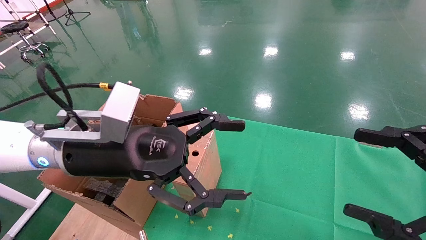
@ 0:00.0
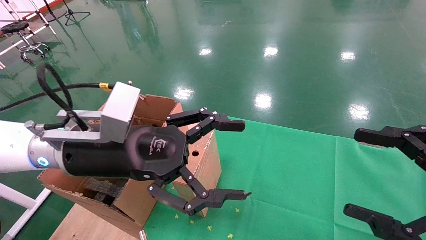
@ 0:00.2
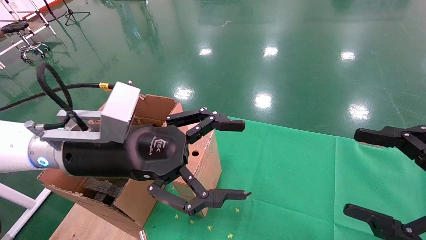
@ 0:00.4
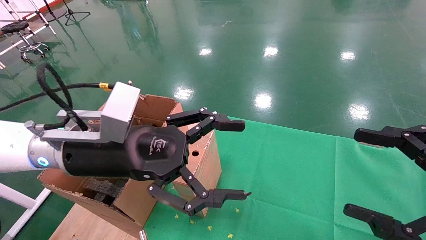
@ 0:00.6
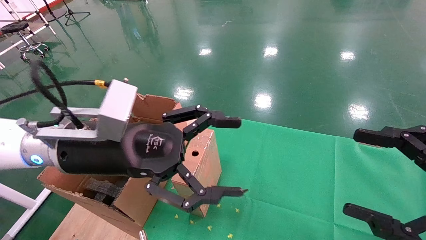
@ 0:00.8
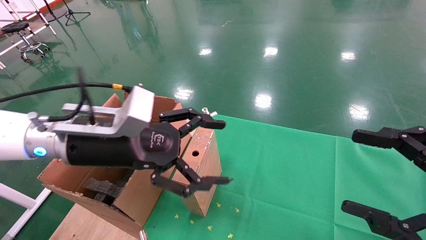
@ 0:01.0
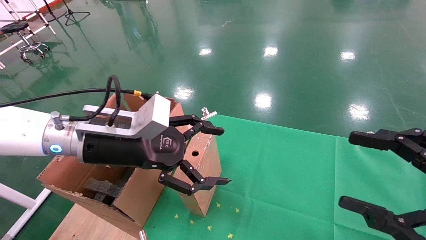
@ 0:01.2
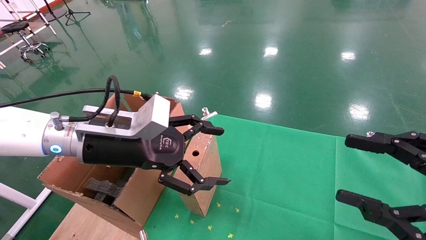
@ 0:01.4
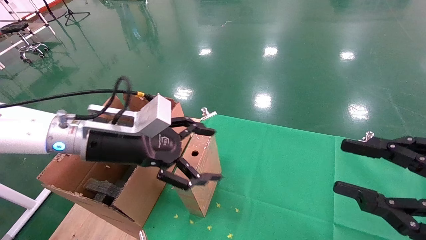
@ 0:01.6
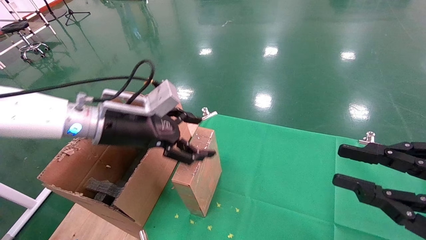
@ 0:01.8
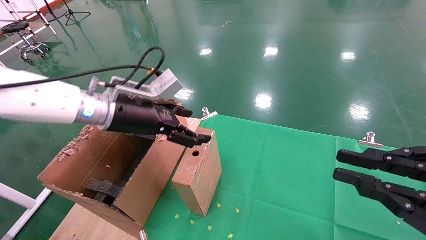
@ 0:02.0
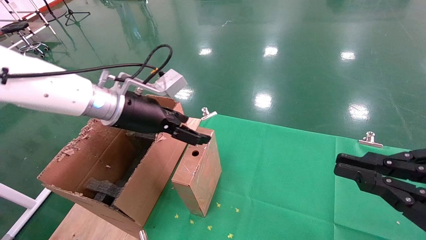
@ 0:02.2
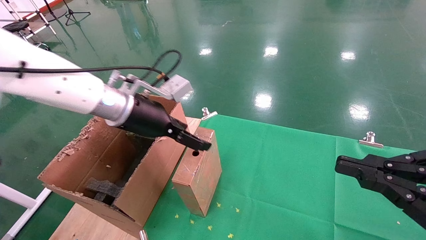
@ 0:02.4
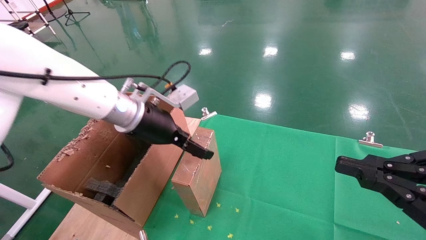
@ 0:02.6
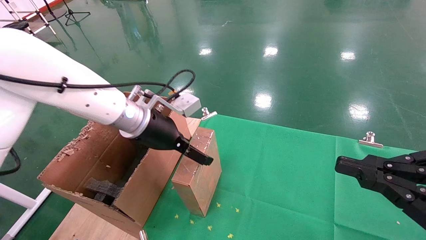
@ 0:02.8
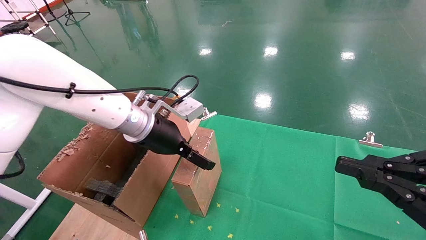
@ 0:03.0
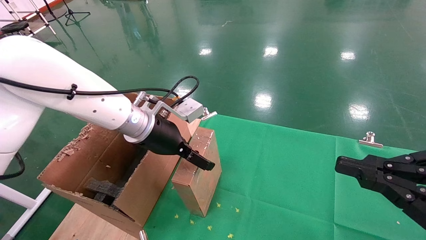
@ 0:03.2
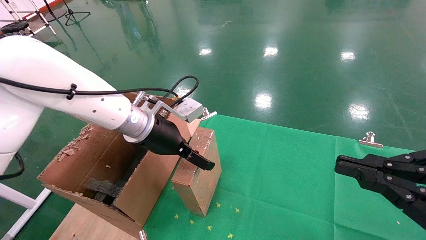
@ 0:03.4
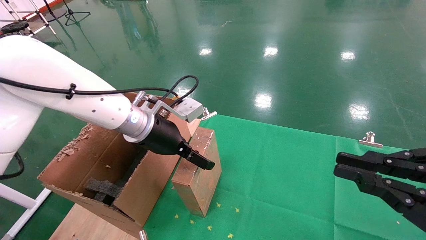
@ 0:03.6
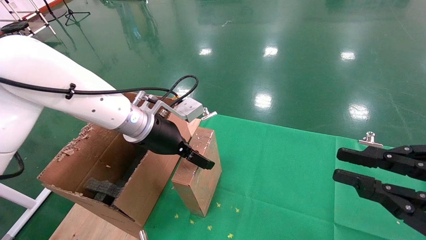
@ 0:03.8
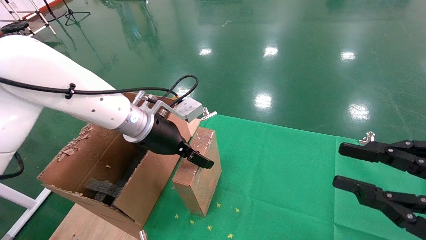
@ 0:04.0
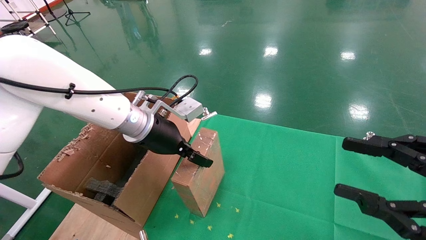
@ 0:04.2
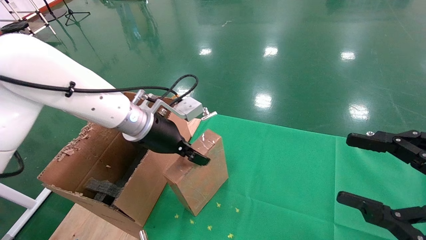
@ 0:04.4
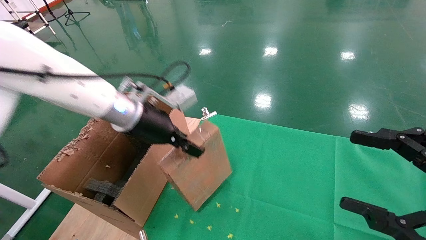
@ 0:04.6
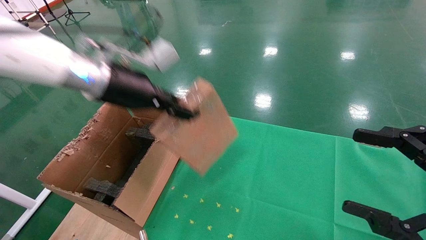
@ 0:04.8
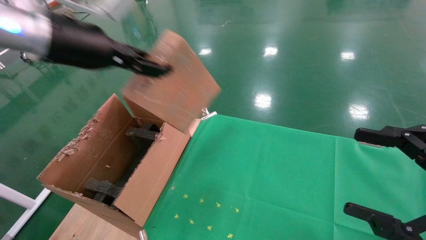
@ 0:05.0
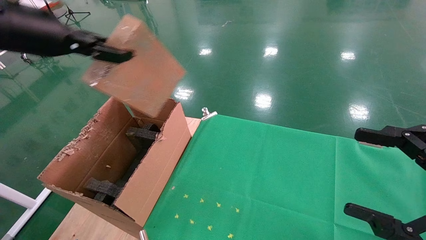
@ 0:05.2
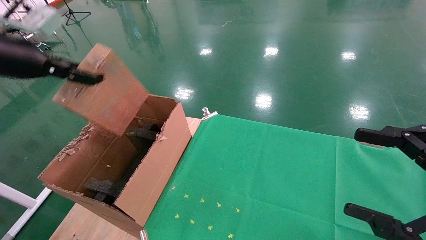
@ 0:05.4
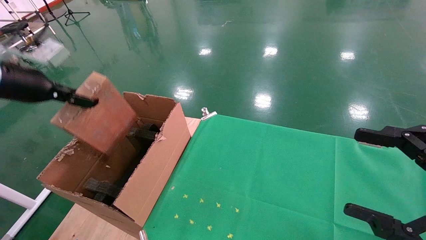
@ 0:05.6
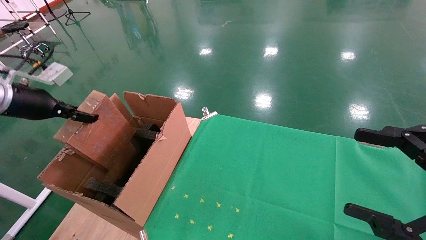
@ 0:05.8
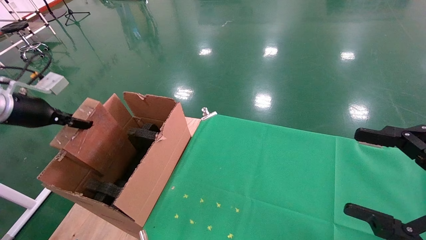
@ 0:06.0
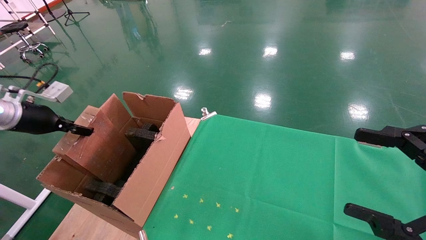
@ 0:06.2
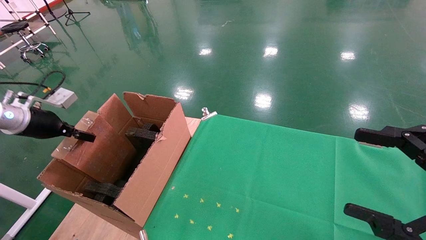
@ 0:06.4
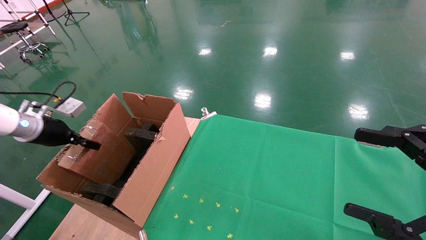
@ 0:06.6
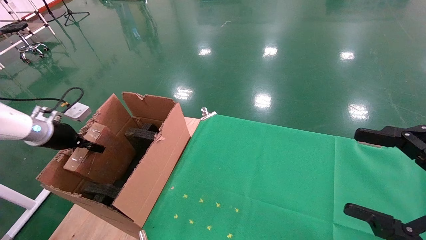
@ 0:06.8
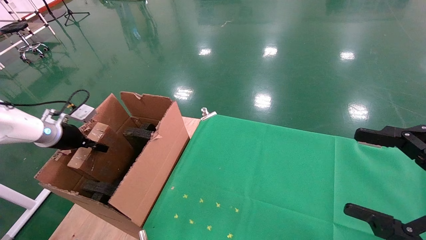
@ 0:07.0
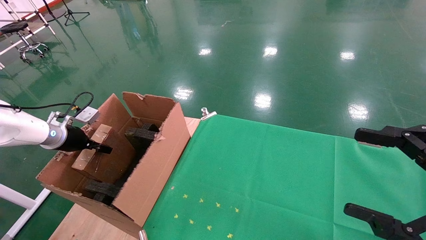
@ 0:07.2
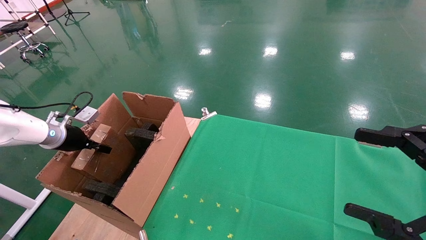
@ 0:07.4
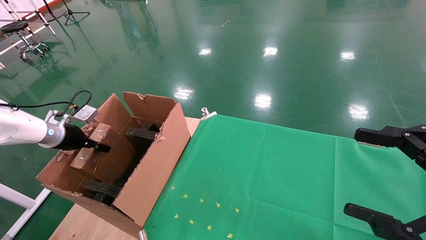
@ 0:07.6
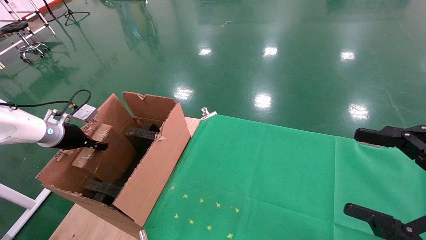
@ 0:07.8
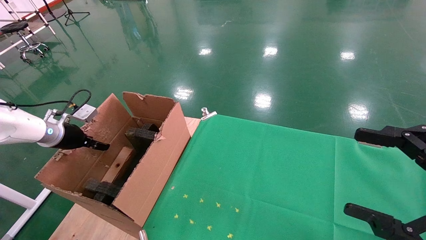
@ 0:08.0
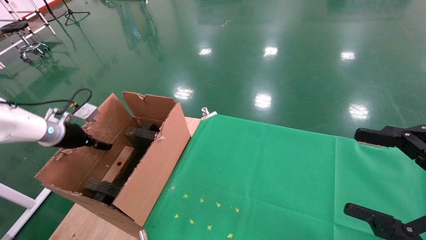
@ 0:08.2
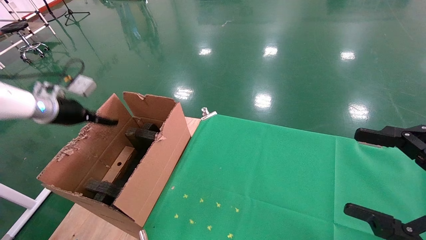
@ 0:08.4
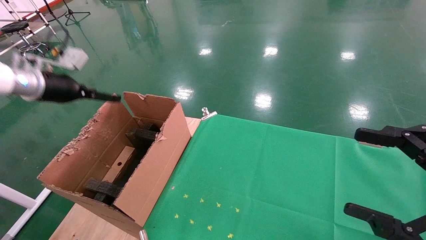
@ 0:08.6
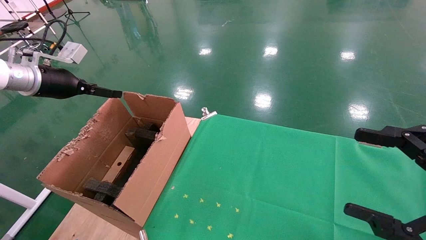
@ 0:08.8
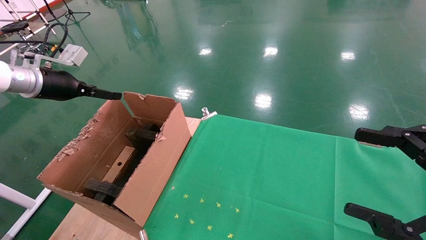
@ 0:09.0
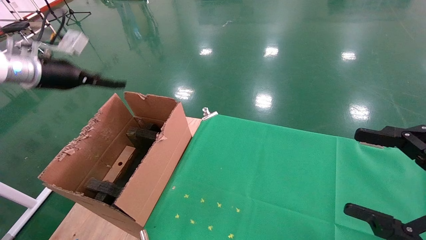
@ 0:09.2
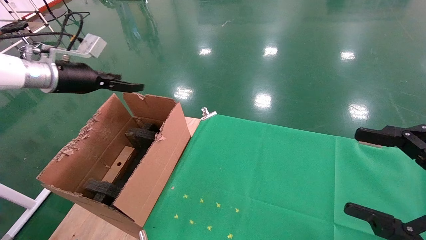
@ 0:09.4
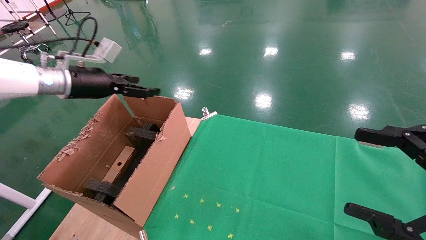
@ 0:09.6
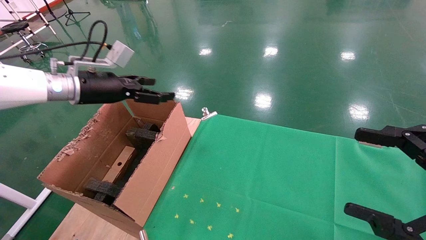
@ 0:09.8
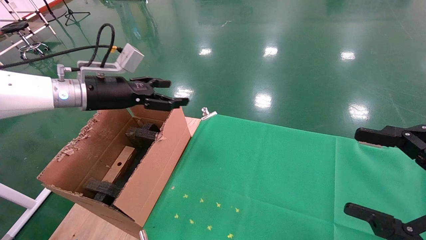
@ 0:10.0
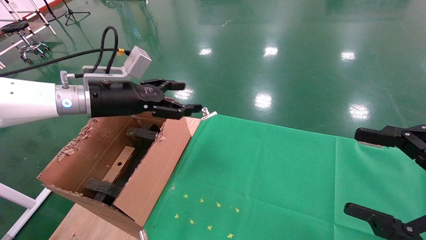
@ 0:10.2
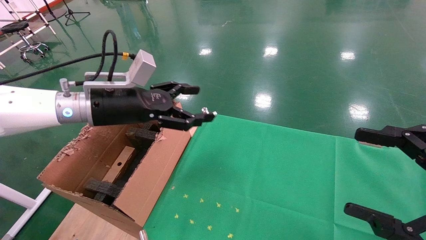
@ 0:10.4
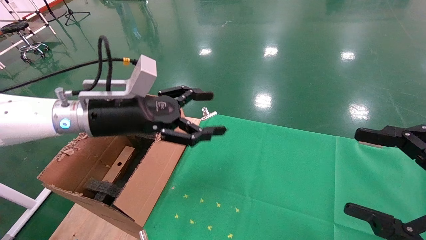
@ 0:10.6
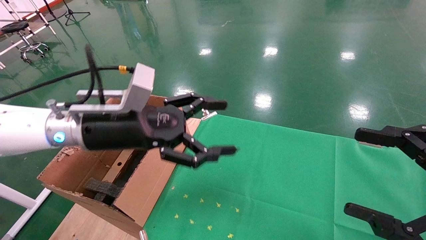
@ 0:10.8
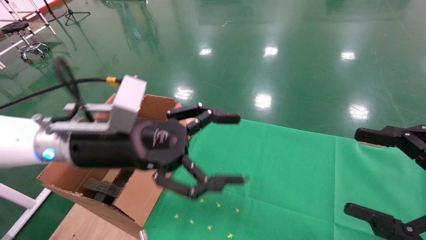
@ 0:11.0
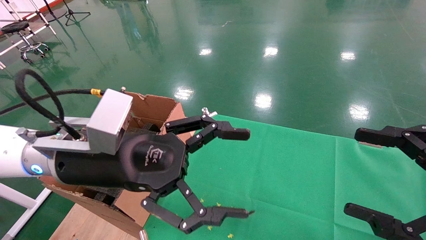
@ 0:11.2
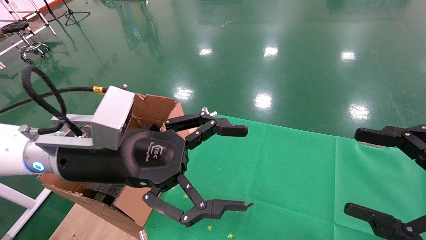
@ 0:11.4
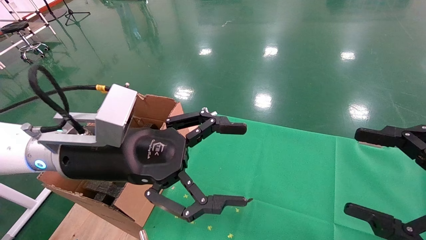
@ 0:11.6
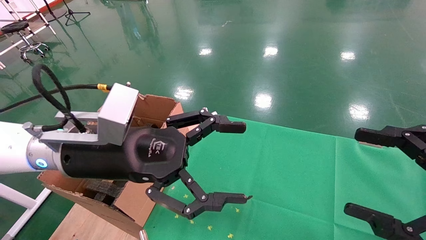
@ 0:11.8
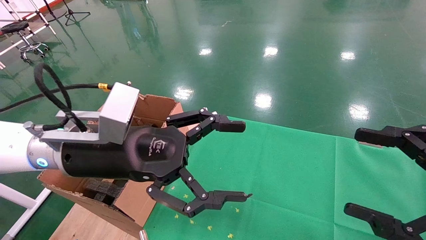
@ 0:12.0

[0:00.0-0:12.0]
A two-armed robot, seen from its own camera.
Task of the whole recording: using a robotic arm to pick up a cardboard box and palace it the carton.
Step, 0:00.8 to 0:04.4: Pick up the mouse and the power cord paper box.
Step, 0:04.6 to 0:07.8: Place the mouse and the power cord paper box into the container.
0:00.0 to 0:01.6: The right gripper closes. Meanwhile the left gripper is displaced forward by approximately 5 cm.
0:01.6 to 0:03.0: The right gripper closes up; the left gripper is displaced forward by about 5 cm.
0:03.0 to 0:04.4: The left gripper closes. The right gripper opens up.
0:04.4 to 0:06.0: The right gripper opens, while the left gripper shifts roughly 30 cm to the left.
0:06.0 to 0:07.6: The left gripper shifts some 10 cm downward and forward.
0:07.6 to 0:09.0: The left gripper travels upward by approximately 15 cm, and opens.
0:09.0 to 0:10.4: The left gripper goes roughly 20 cm to the right.
0:10.4 to 0:12.0: The left gripper goes approximately 10 cm backward and to the right.

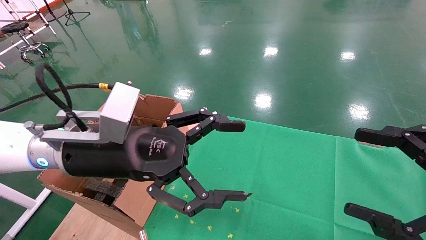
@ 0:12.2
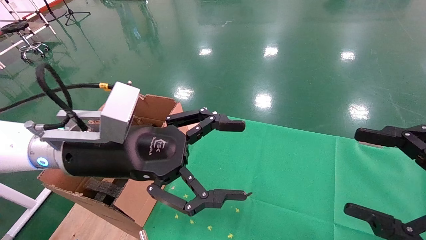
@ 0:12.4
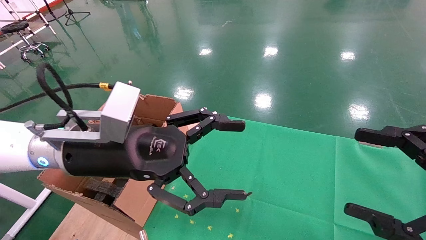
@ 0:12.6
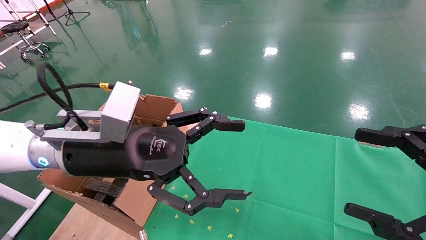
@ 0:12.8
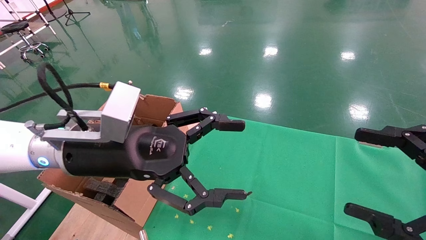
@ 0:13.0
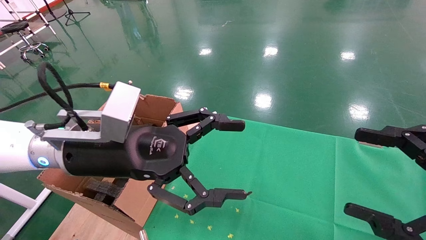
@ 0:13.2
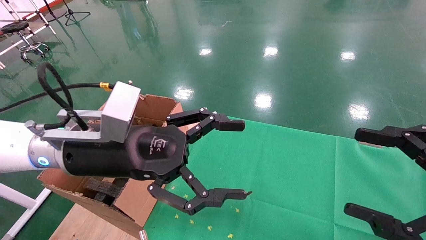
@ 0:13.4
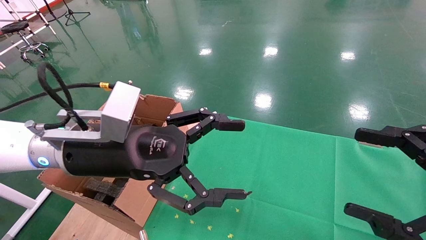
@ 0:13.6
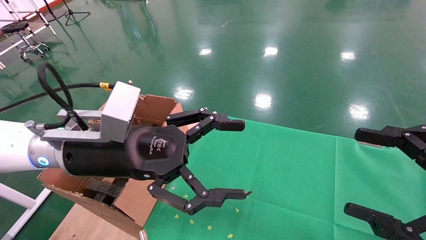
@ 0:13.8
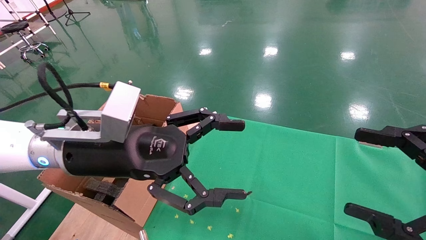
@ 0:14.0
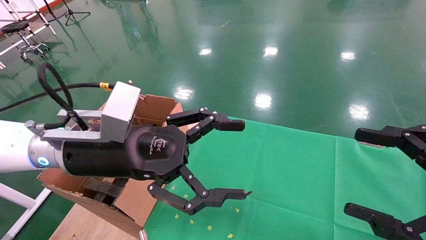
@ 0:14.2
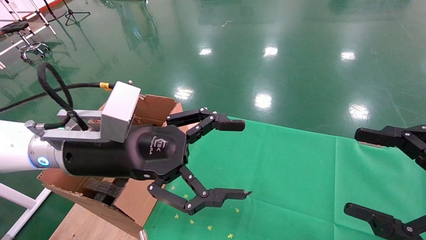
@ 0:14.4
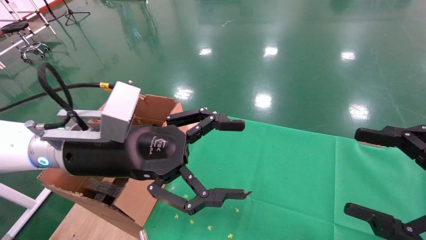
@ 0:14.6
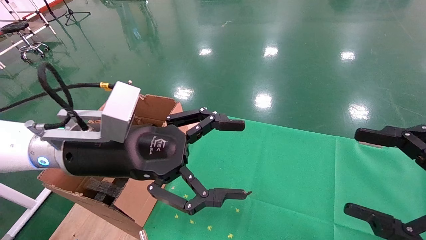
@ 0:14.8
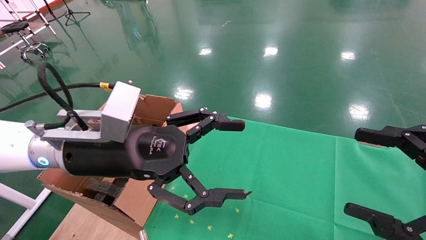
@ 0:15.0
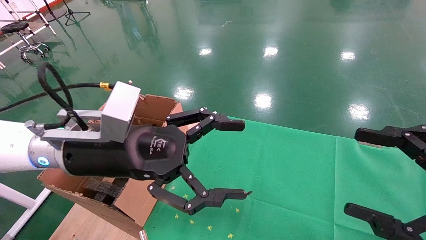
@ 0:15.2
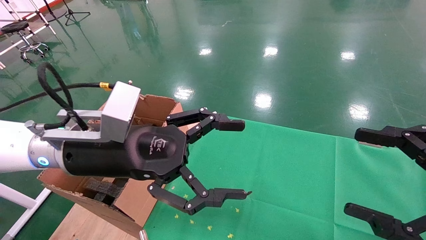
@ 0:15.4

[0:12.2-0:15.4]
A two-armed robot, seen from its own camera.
Task of the whole recording: using a robotic arm to pick up a cardboard box and palace it the carton.
0:12.2 to 0:15.4: The two grippers keep their place.

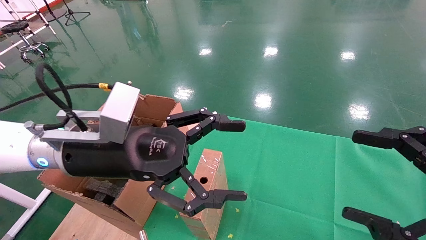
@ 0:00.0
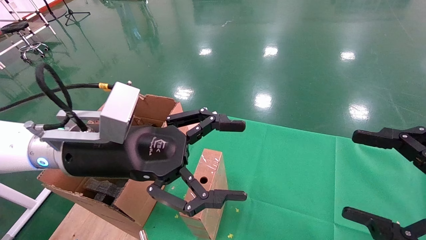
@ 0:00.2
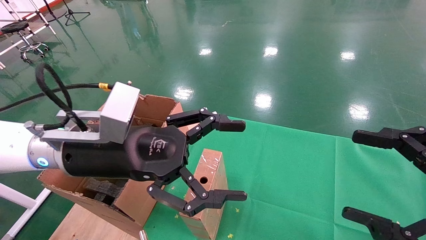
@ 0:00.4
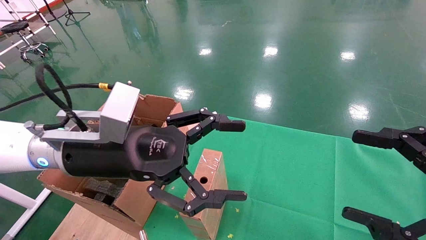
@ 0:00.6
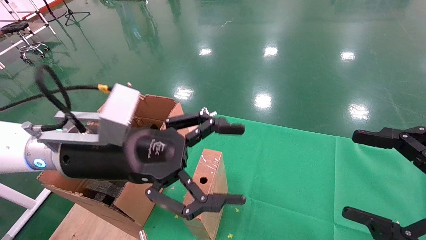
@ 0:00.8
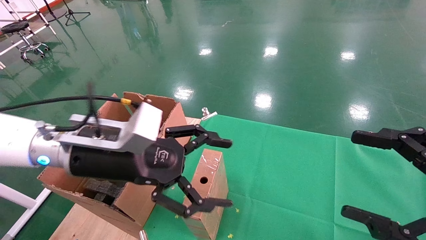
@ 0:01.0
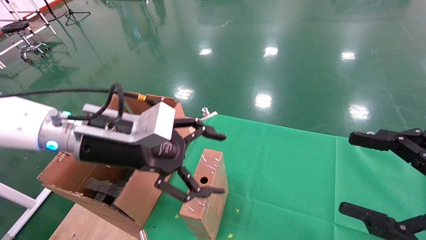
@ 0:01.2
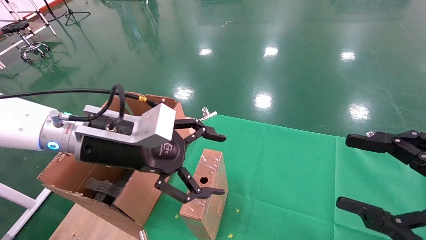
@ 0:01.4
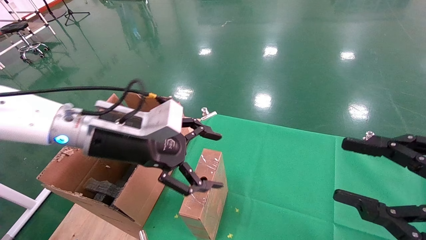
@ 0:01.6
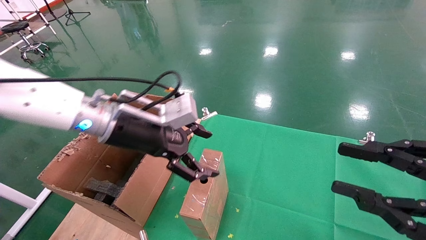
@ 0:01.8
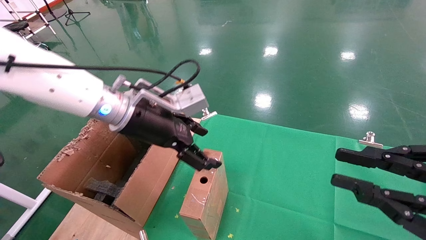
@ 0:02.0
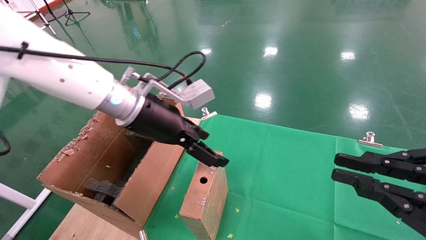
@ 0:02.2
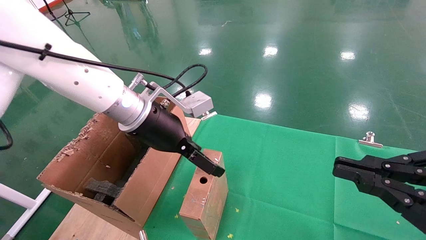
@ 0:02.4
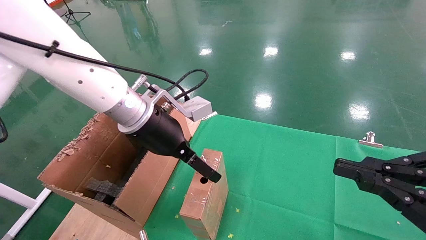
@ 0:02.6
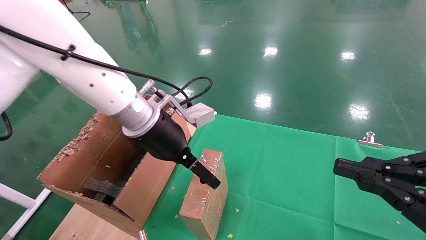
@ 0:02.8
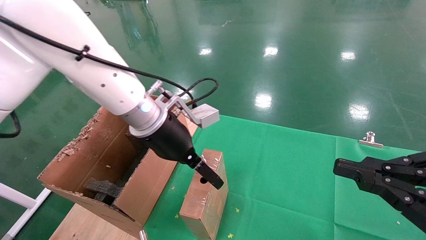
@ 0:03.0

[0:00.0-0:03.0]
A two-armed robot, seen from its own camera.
Task of the whole recording: using a robotic arm to pick up a cardboard box and palace it the carton.
0:00.0 to 0:01.6: The left gripper moves about 5 cm.
0:01.6 to 0:03.0: The left gripper travels to the right by roughly 5 cm; the right gripper closes its fingers.
